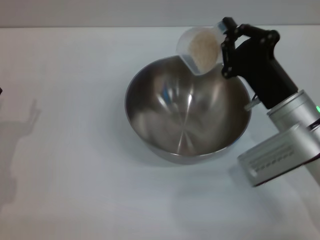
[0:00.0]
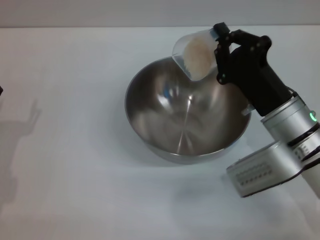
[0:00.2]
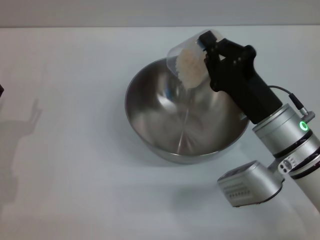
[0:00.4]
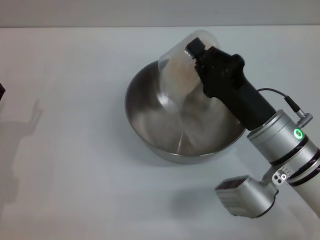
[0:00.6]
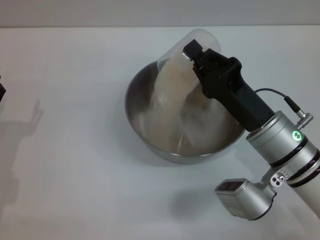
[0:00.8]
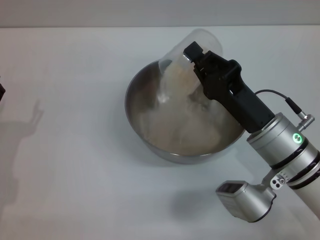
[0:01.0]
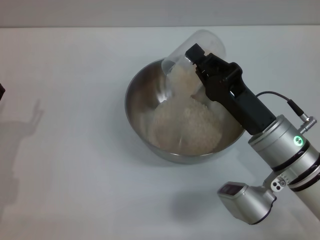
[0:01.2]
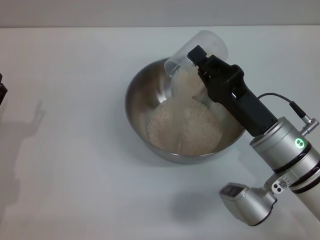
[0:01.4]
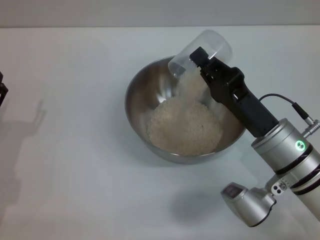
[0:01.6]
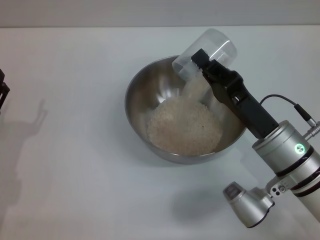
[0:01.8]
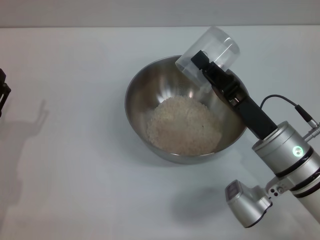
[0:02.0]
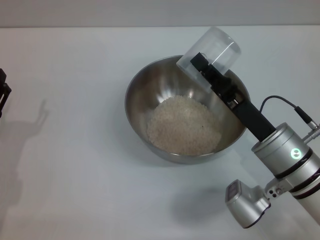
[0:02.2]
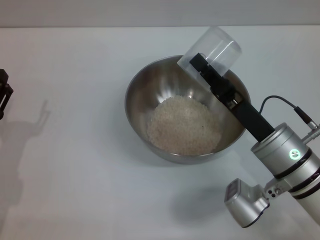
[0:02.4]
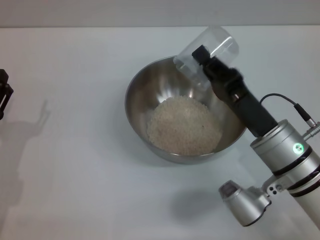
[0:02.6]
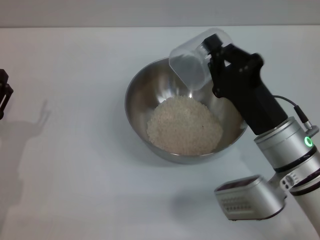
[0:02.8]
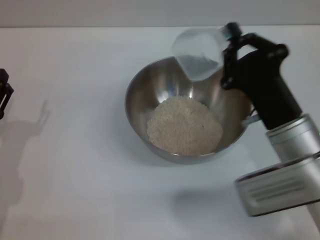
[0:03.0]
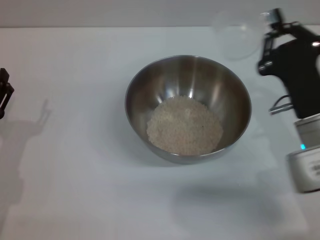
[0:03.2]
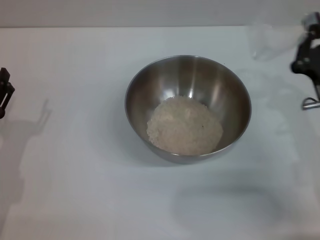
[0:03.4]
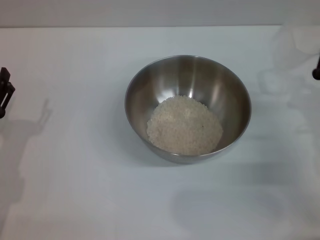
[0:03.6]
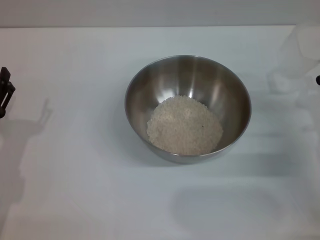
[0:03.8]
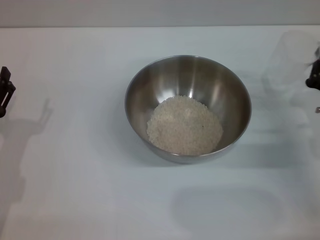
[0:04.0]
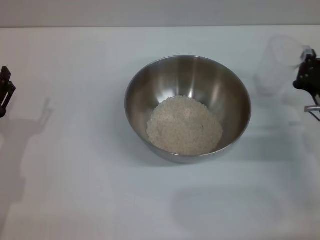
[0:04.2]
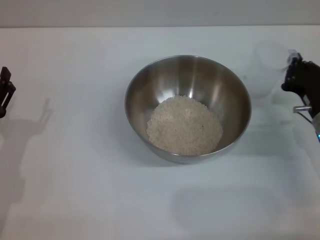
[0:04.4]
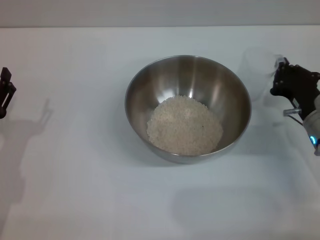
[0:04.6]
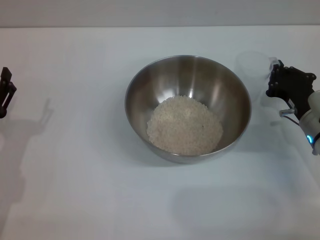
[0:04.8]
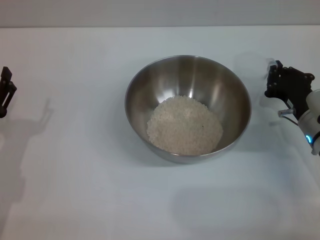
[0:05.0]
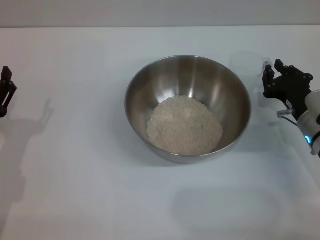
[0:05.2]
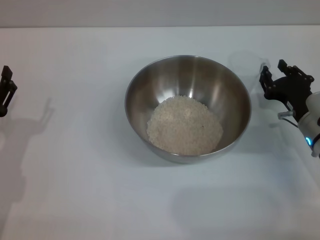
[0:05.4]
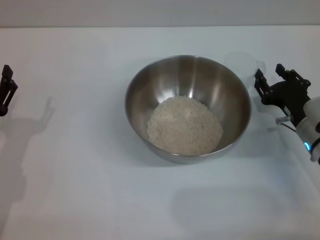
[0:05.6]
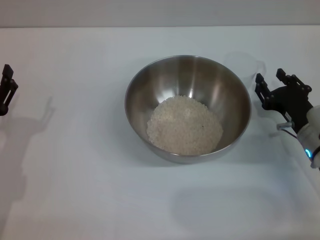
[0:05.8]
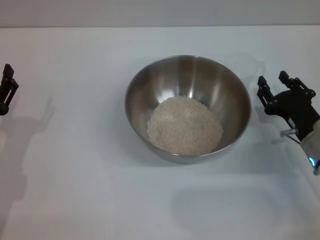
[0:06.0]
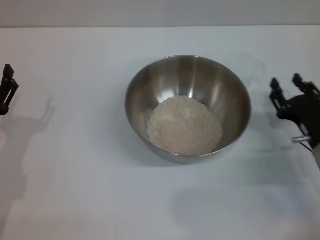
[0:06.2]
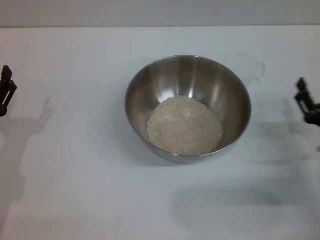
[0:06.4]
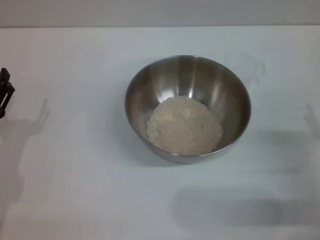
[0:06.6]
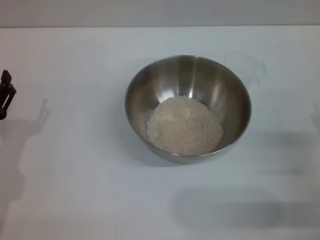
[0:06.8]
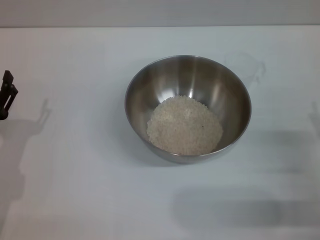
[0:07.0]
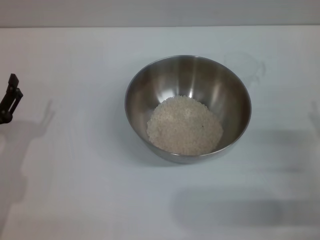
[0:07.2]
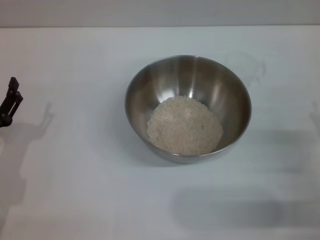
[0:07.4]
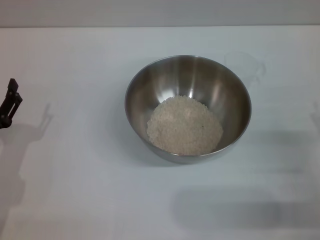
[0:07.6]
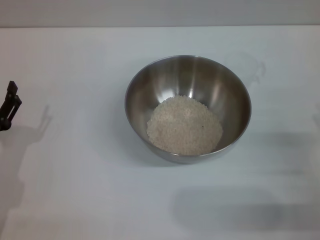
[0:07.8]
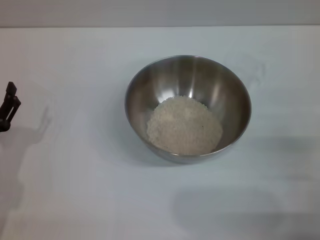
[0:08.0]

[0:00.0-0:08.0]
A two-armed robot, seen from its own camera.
Task of the whole recording: Place the bowl in the middle of the table with one hand and pour the rice from the grain cup into it with the other hand.
Step, 0:00.0 to 0:02.6: Pour the rice from the cup into the bowl with the left gripper.
0:03.2 to 0:04.8: The right gripper travels downward, forward and to the right by about 10 cm.
0:04.8 to 0:06.4: The right gripper shifts roughly 10 cm backward, and opens.
0:06.4 to 0:08.0: The right gripper ends up about 5 cm from where it was.

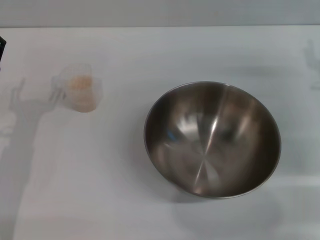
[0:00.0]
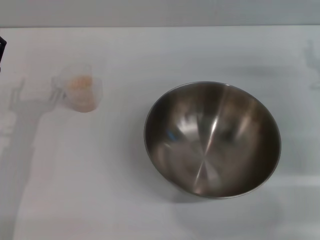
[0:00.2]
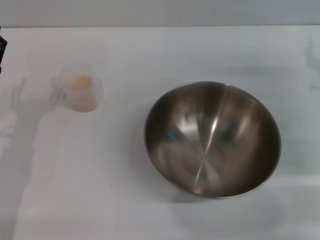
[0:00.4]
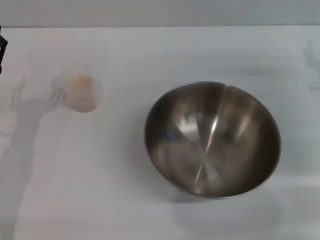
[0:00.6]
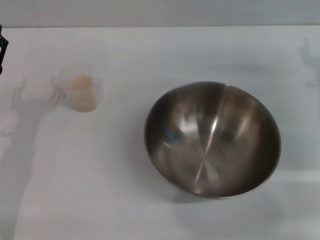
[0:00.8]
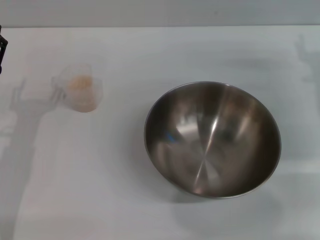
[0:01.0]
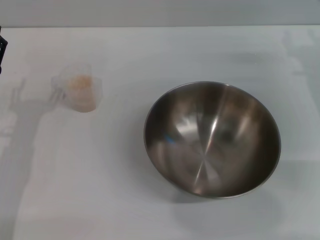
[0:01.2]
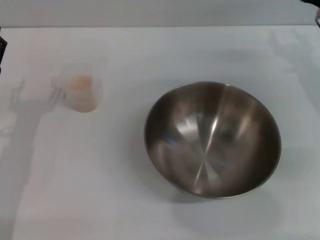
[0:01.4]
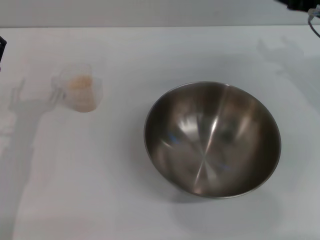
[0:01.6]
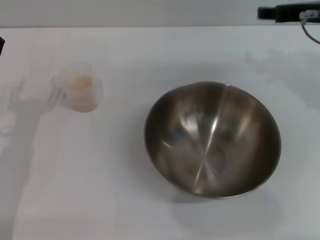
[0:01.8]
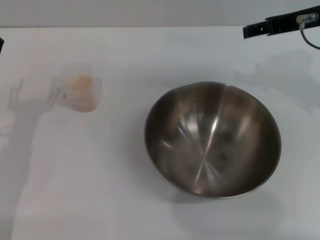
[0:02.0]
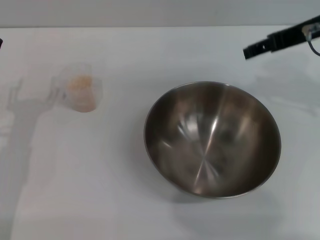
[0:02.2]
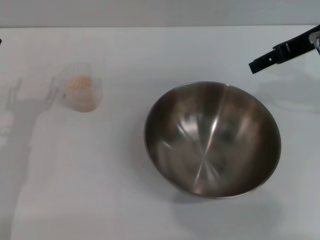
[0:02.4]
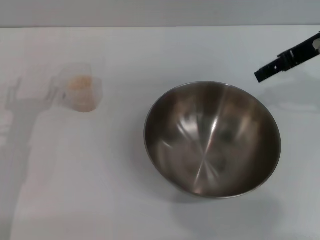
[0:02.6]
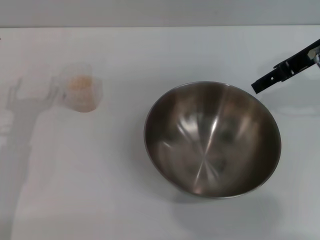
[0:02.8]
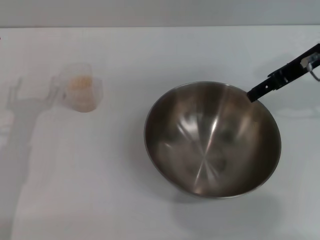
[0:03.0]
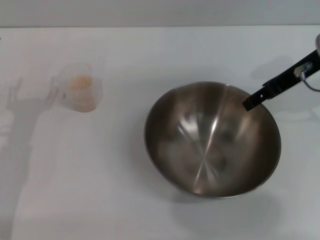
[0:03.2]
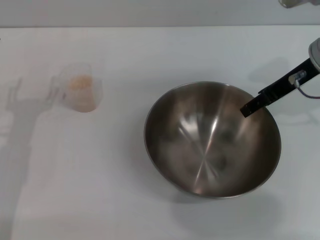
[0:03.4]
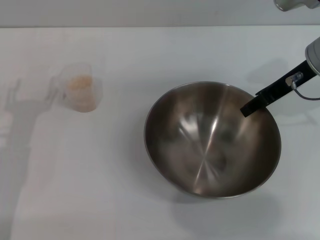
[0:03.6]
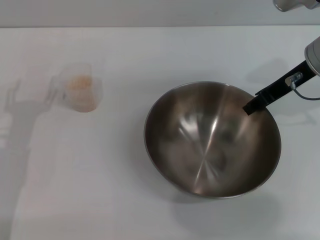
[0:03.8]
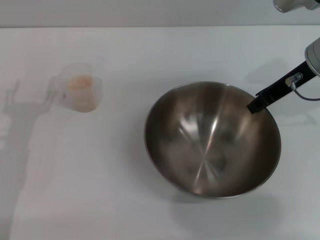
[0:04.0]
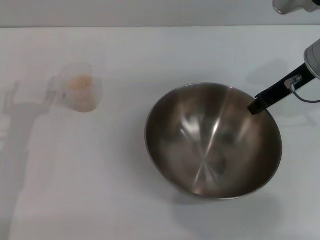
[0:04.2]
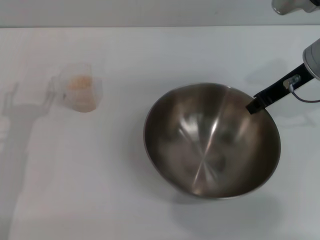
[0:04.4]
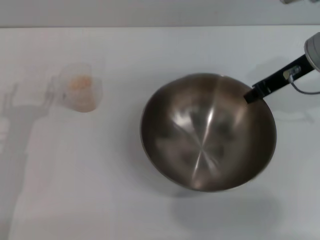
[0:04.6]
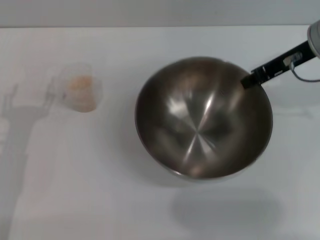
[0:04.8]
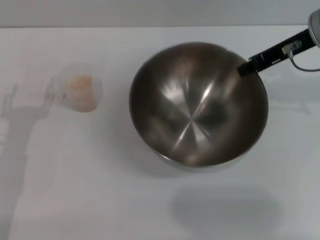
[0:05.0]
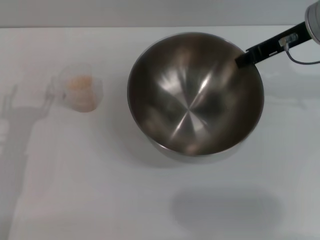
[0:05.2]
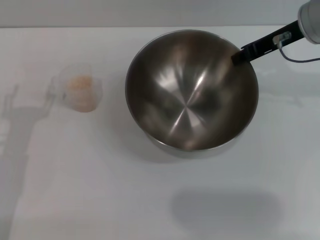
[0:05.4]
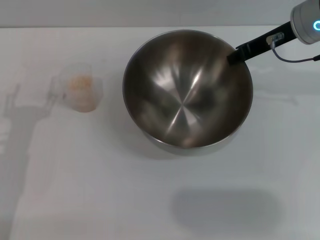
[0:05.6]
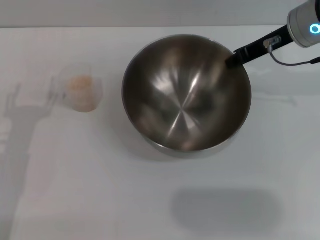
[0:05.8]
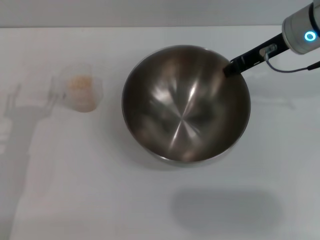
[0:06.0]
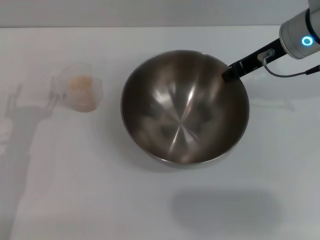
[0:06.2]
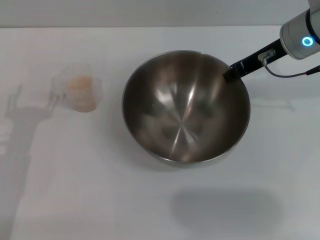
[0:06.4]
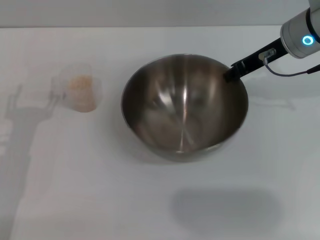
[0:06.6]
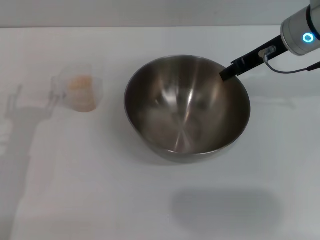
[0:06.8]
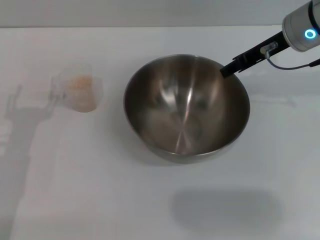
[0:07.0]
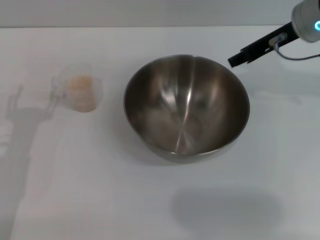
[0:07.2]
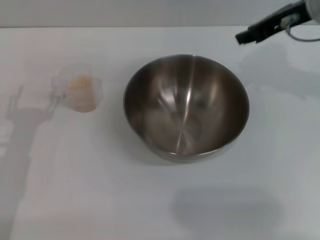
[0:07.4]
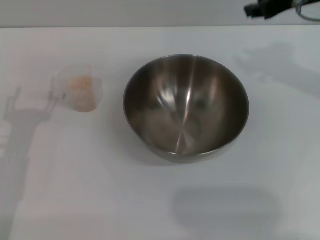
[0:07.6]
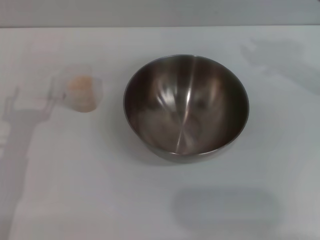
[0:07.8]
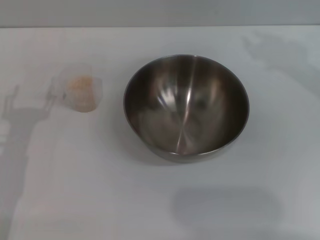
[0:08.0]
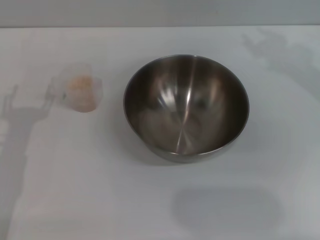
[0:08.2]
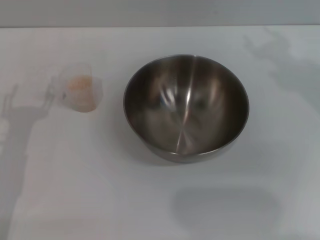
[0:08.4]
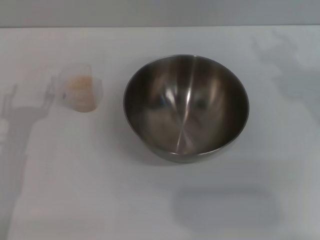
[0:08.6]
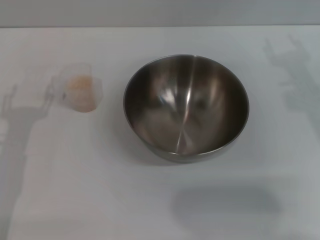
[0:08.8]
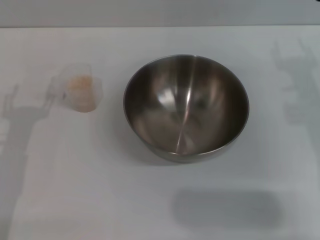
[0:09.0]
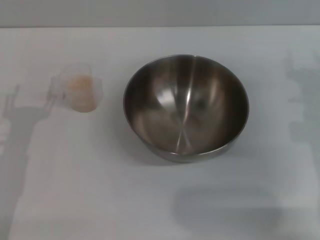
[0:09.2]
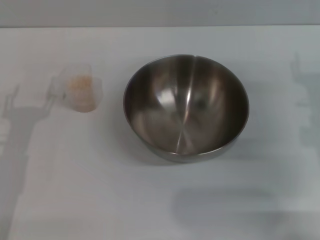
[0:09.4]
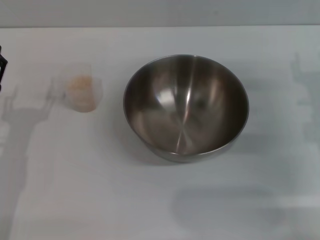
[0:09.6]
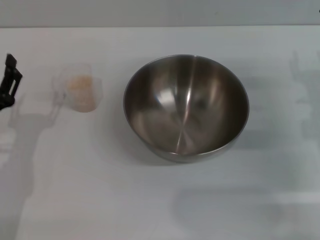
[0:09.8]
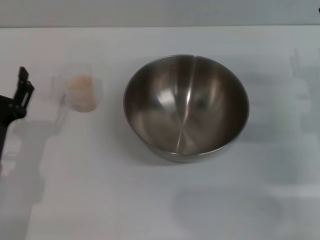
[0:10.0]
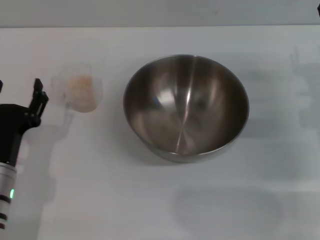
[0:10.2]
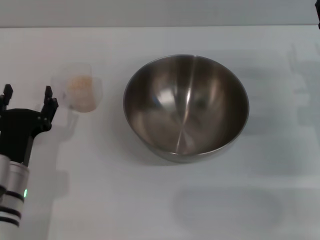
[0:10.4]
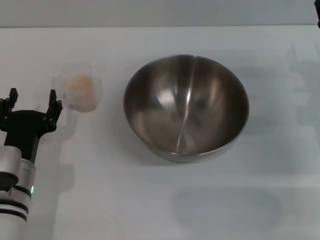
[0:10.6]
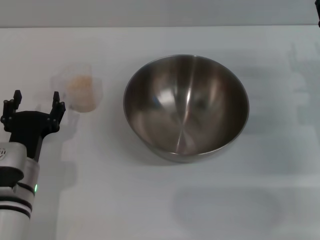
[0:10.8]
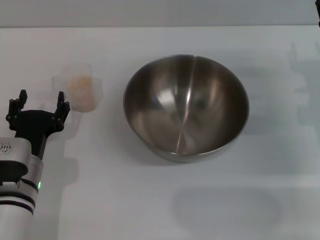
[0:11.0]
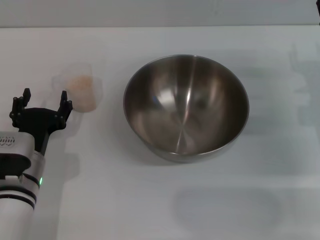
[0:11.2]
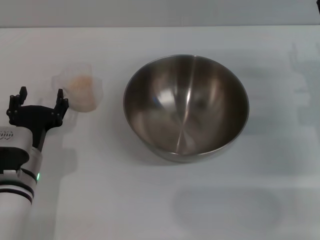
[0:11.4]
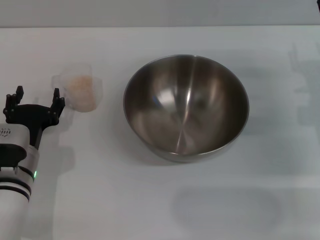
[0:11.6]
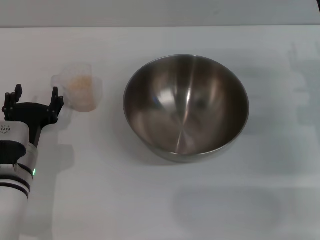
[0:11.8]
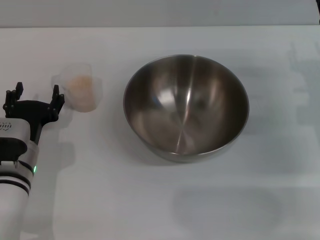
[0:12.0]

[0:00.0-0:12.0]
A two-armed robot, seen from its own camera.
Task of the whole recording: Place the bowl in the middle of the table with one hand and pour the rice from the grain cup into it with the other hand.
Step, 0:00.0 to 0:04.6: Pick up the bowl with the right gripper.
Step, 0:04.8 to 0:07.2: Place the bowl in the center of view with the right gripper.
0:00.0 to 0:01.6: The right gripper moves upward, about 10 cm.
0:03.0 to 0:04.4: The right gripper closes its fingers.
0:06.0 to 0:07.6: The right gripper moves upward, some 5 cm, and opens up.
0:07.6 to 0:09.0: The right gripper goes about 15 cm downward and backward, and opens up.
0:09.0 to 0:10.4: The left gripper heads to the right, covering some 5 cm. Meanwhile the right gripper heads downward, covering approximately 10 cm.
0:10.4 to 0:12.0: There are only small adjustments of the grippers.

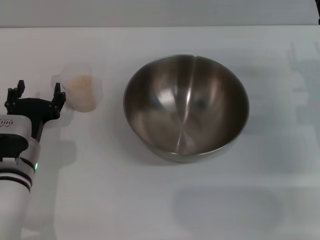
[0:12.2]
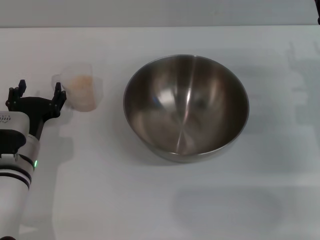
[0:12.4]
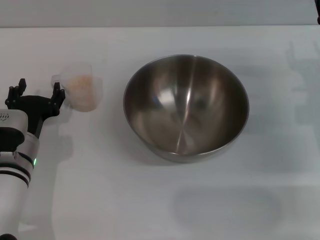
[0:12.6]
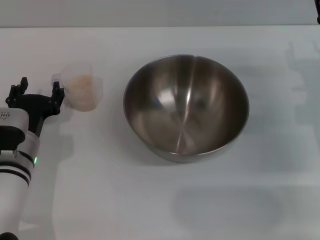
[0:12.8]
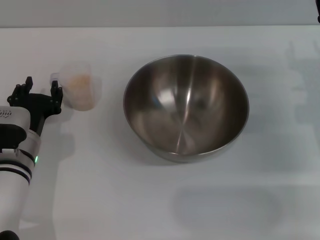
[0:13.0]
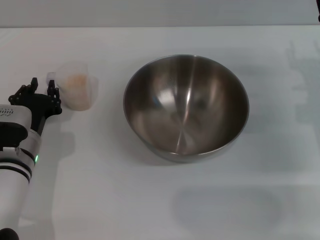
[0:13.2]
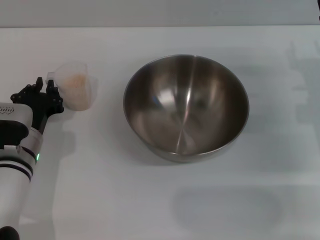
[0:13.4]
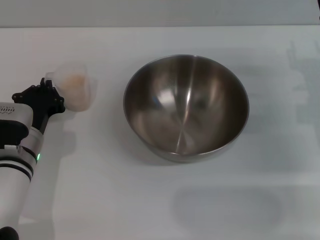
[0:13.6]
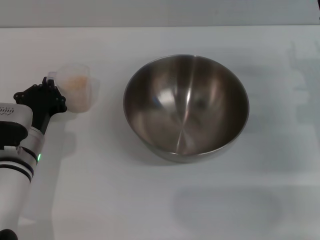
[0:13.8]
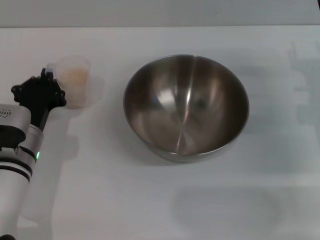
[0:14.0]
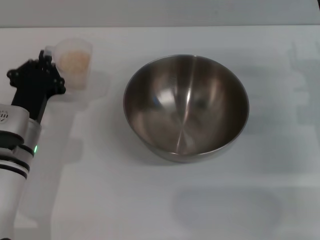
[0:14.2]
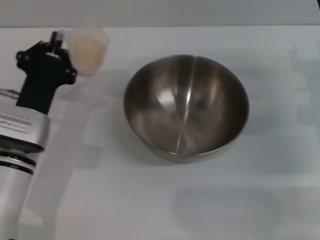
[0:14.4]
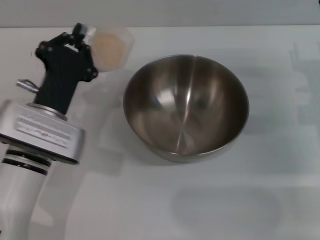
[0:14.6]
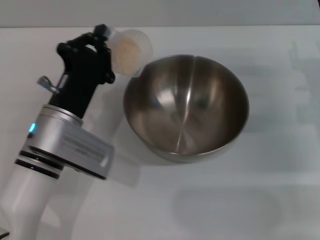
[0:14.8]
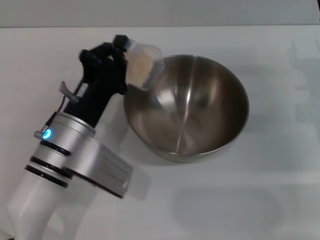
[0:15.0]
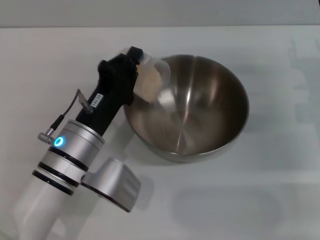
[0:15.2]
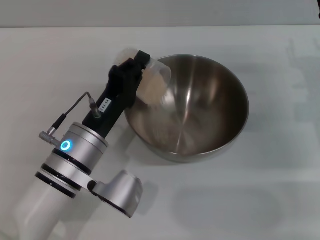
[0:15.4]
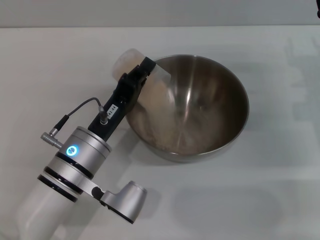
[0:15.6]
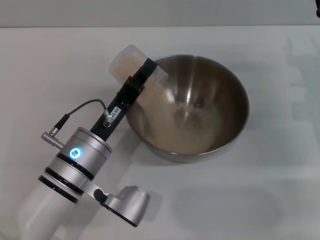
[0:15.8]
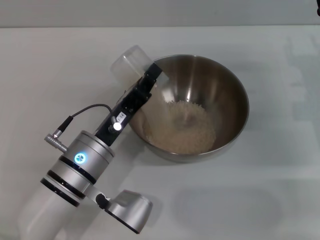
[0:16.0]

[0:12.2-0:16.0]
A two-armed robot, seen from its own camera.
Task of the whole recording: Place the bowl in the middle of the table with one hand and pour the rice from the grain cup into it with the other hand.
Step, 0:12.2 to 0:14.2: Pick up the cup with rice in it with the left gripper.
0:12.2 to 0:13.4: The left gripper closes up.
0:13.4 to 0:14.8: The left gripper goes some 10 cm to the right and upward, and closes.
